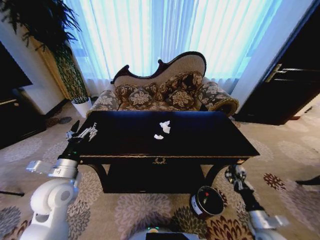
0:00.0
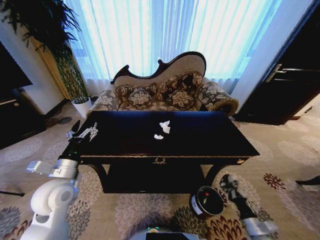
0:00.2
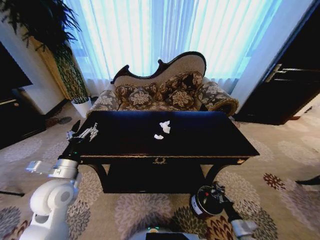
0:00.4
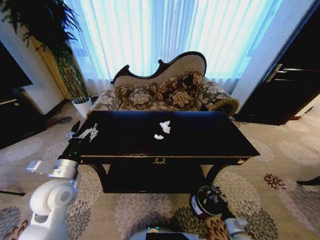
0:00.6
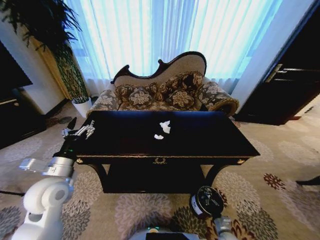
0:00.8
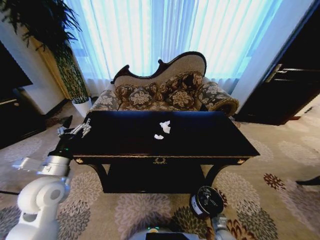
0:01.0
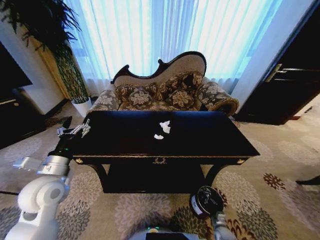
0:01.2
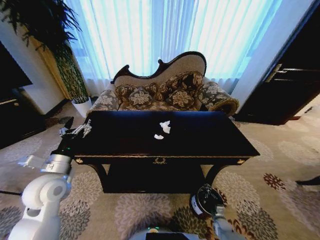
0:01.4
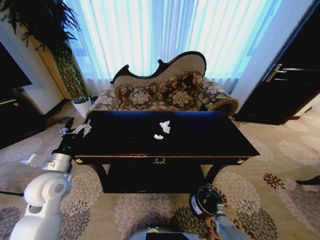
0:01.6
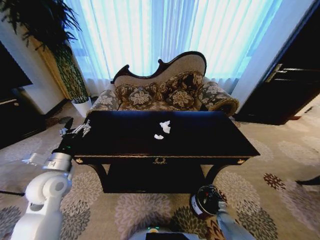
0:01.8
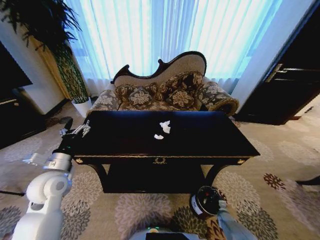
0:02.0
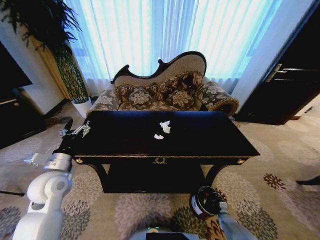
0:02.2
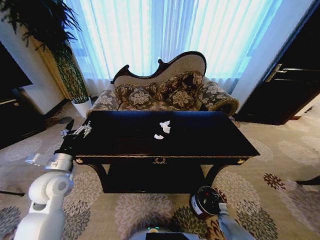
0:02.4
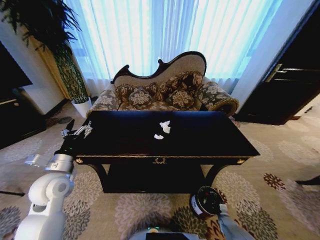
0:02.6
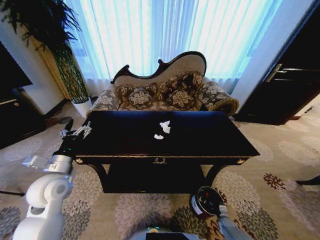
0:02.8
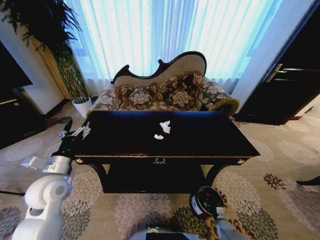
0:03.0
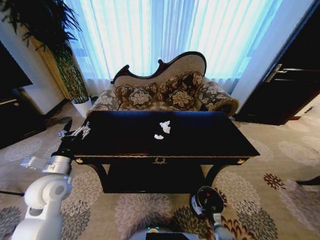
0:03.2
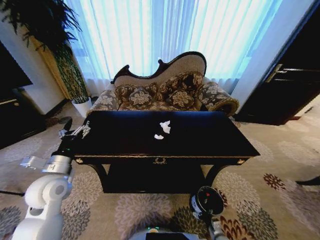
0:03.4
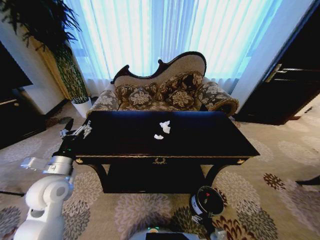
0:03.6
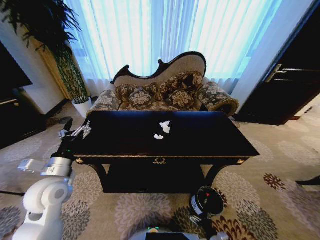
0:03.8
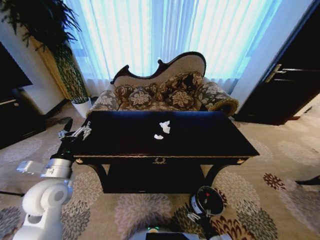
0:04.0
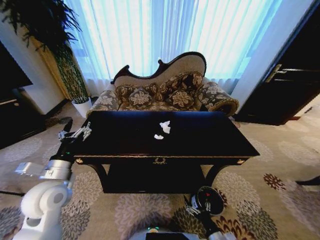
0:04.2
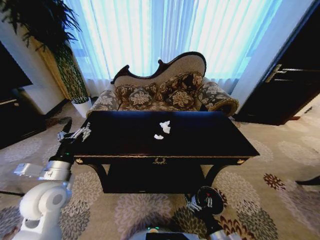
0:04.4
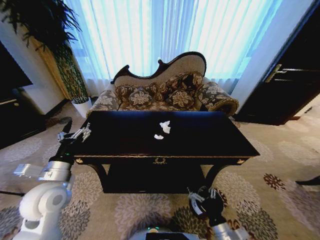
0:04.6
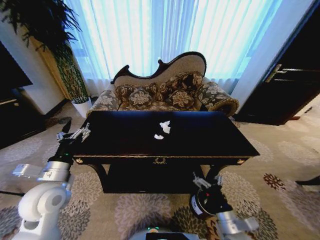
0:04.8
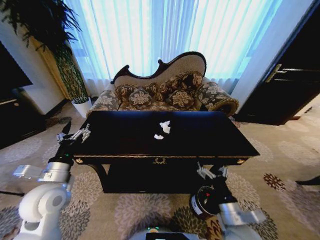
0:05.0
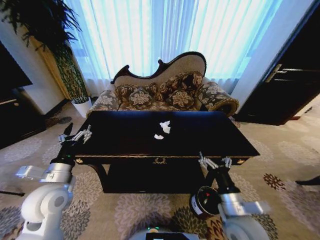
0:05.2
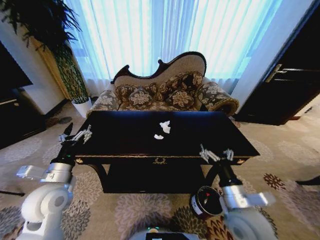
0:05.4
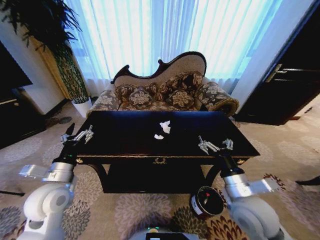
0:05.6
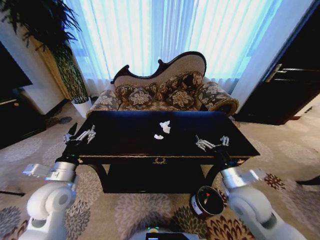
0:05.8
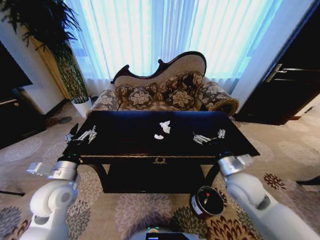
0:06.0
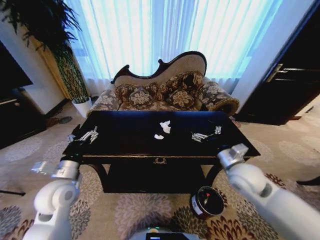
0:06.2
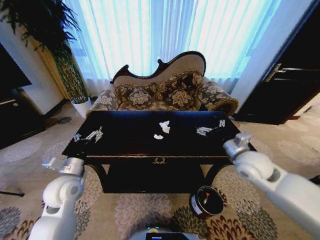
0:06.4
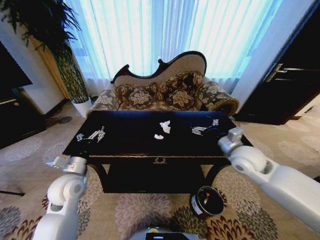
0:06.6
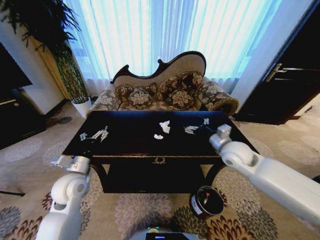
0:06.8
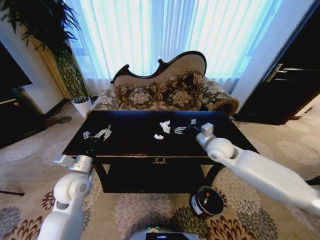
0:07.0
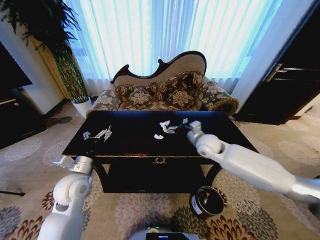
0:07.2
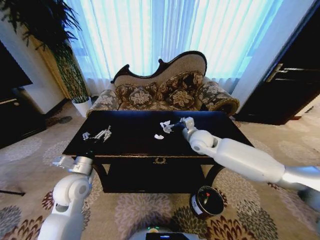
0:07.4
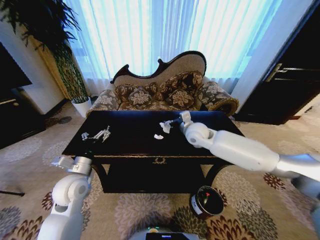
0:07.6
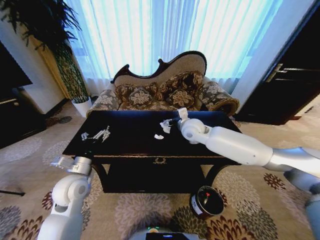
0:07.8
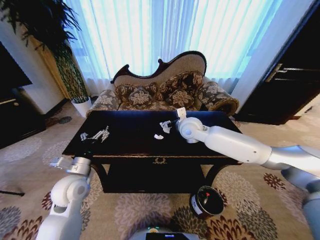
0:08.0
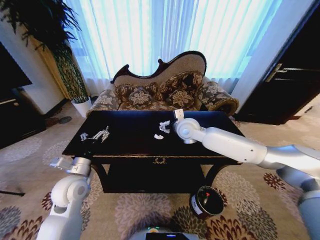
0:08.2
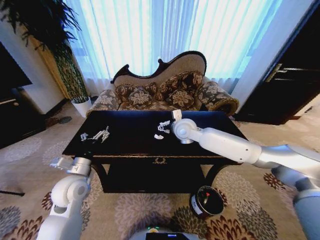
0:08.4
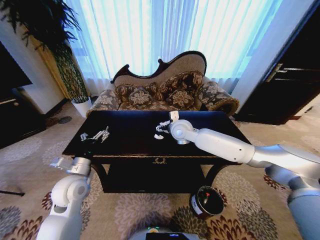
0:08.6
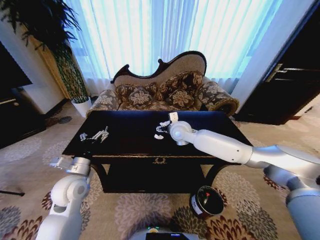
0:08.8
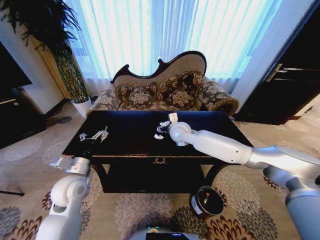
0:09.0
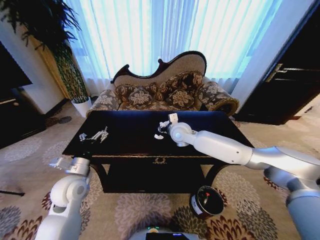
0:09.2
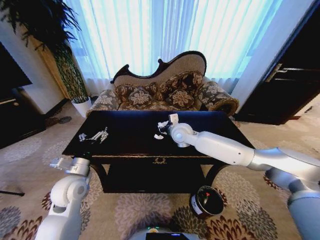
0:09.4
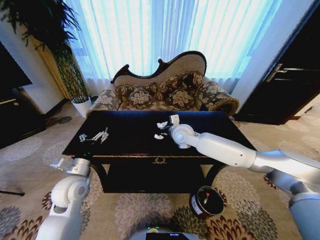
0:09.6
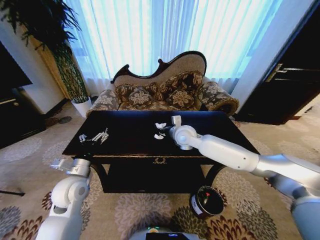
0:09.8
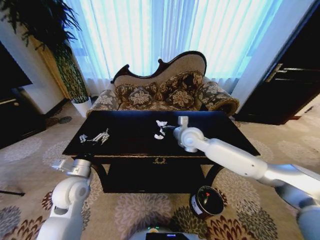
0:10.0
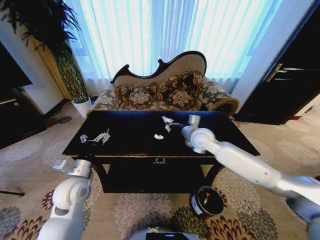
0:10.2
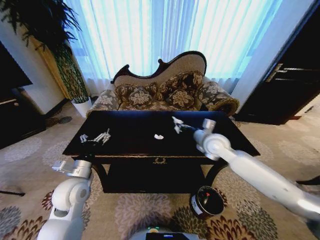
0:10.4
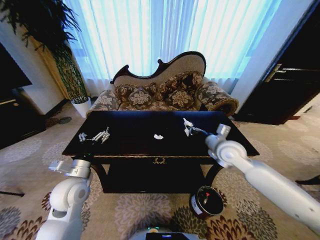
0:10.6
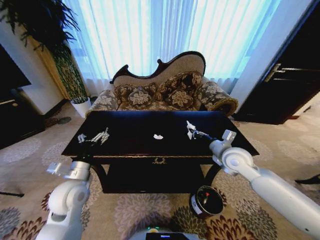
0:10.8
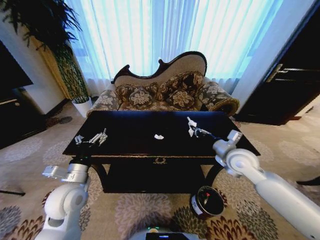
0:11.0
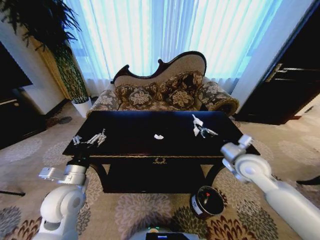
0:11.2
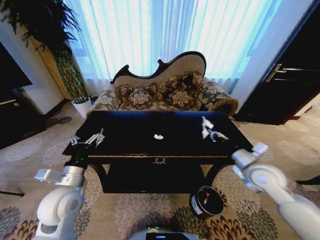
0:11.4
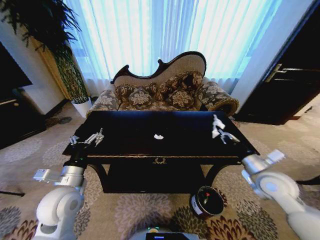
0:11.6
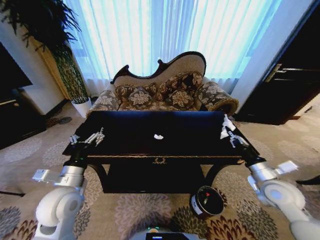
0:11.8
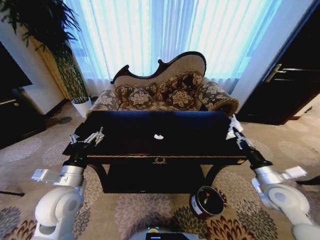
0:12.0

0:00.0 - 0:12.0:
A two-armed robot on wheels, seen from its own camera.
Task of the whole recording: Move to the front of the table and place the trash on the table into the trash bin.
0:00.0 - 0:01.6: The right gripper heads downward, covering approximately 25 cm.
0:01.6 - 0:03.0: The right gripper opens its fingers.
0:03.0 - 0:04.4: The right gripper shifts about 30 cm upward, to the left and backward, and opens.
0:04.4 - 0:06.0: The right gripper is displaced upward and forward by some 30 cm.
0:06.0 - 0:07.6: The right gripper goes roughly 25 cm forward and to the left.
0:07.6 - 0:09.0: The right gripper travels to the left by about 5 cm.
0:09.0 - 0:10.4: The right gripper is displaced to the right and backward by some 15 cm, and closes.
0:10.4 - 0:12.0: The right gripper goes about 25 cm to the right, backward and downward.

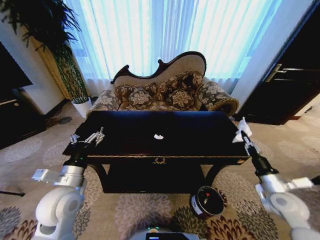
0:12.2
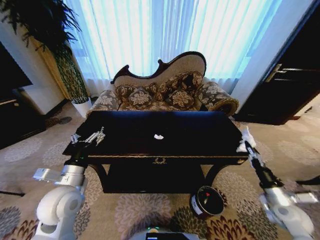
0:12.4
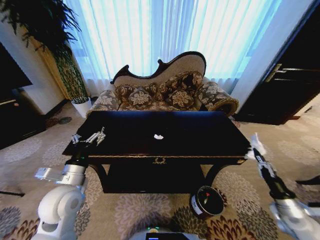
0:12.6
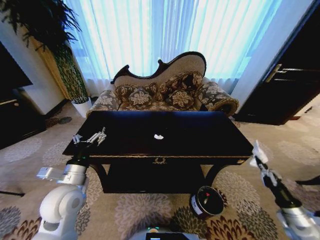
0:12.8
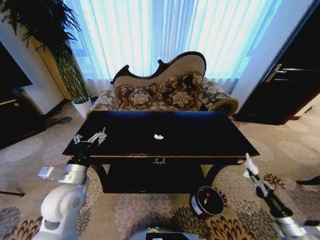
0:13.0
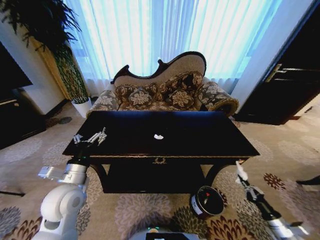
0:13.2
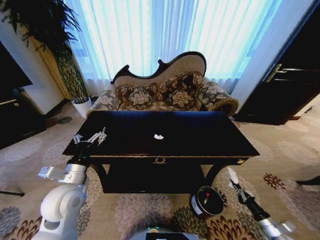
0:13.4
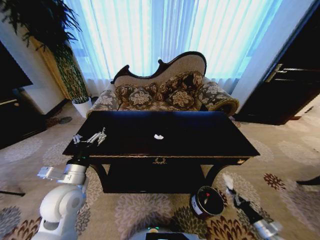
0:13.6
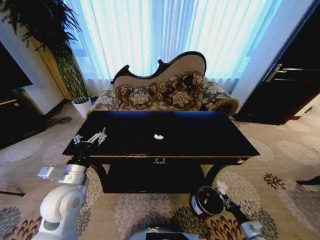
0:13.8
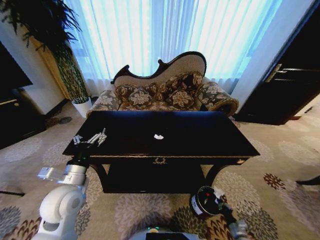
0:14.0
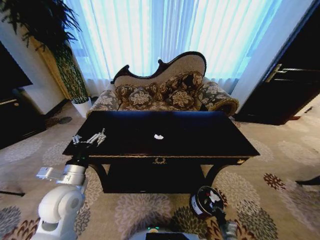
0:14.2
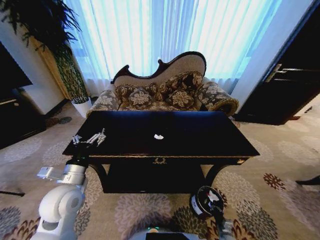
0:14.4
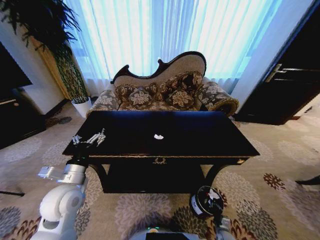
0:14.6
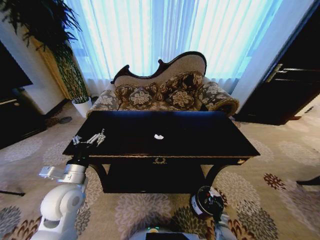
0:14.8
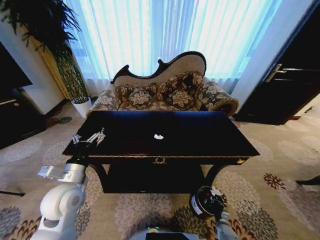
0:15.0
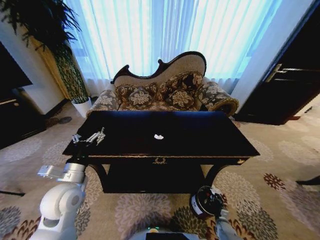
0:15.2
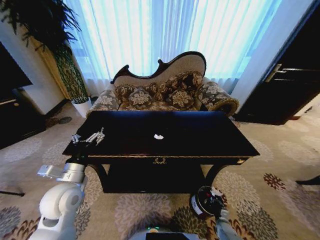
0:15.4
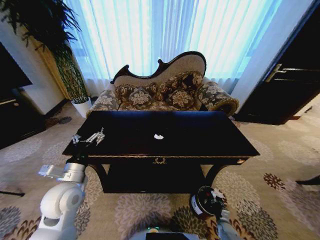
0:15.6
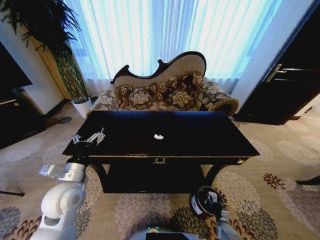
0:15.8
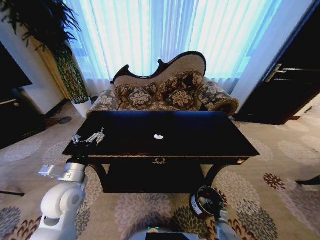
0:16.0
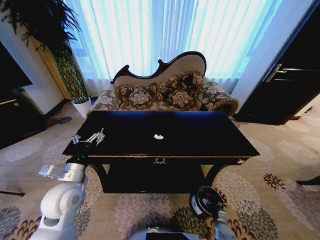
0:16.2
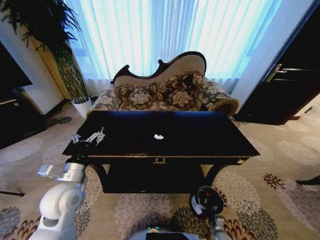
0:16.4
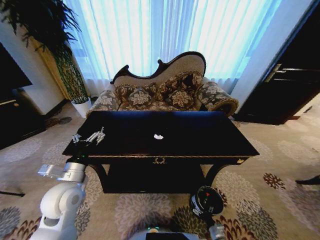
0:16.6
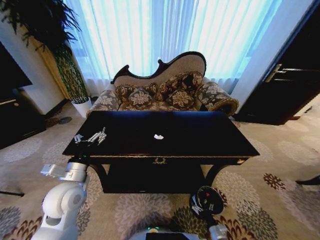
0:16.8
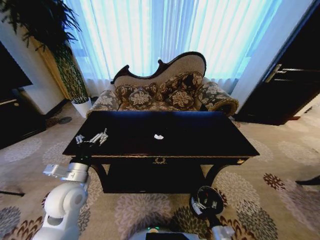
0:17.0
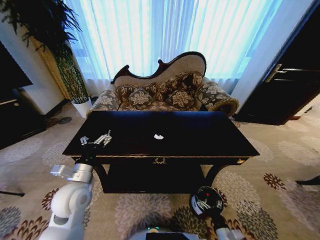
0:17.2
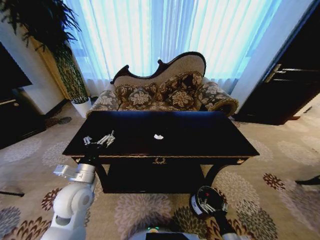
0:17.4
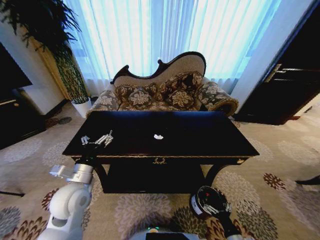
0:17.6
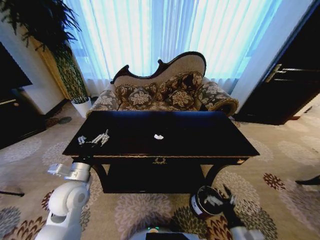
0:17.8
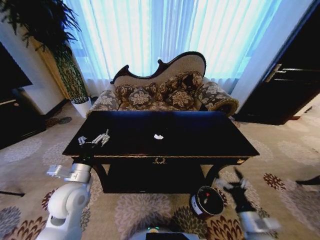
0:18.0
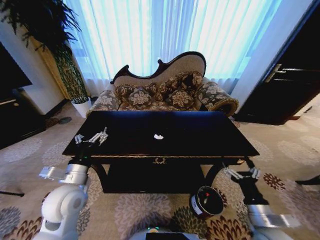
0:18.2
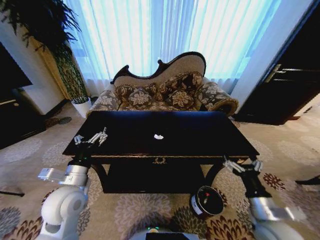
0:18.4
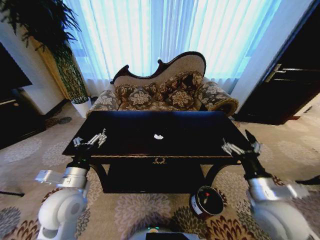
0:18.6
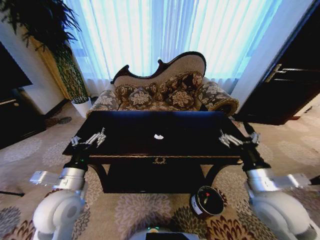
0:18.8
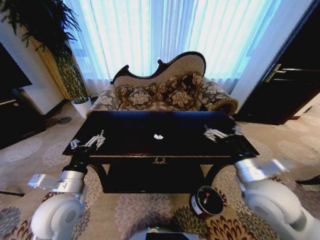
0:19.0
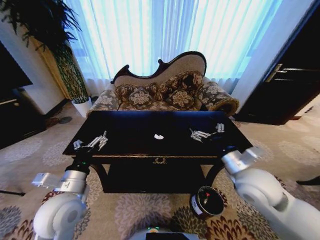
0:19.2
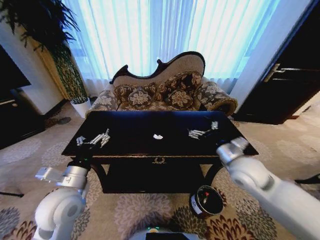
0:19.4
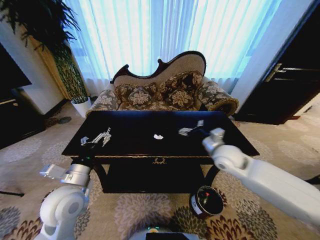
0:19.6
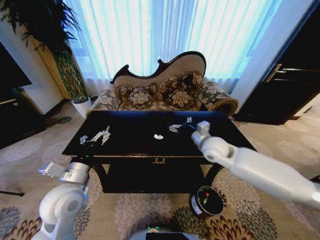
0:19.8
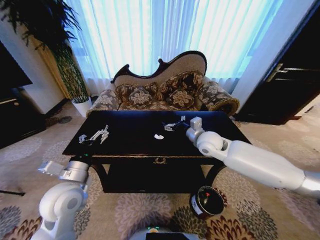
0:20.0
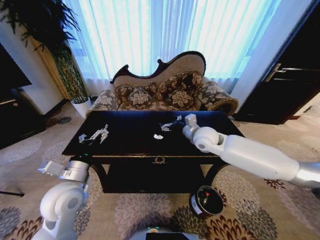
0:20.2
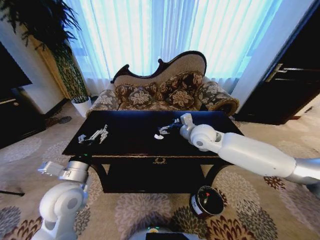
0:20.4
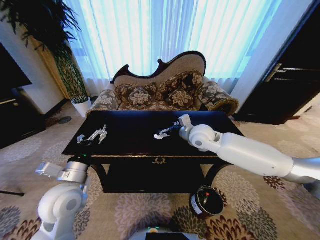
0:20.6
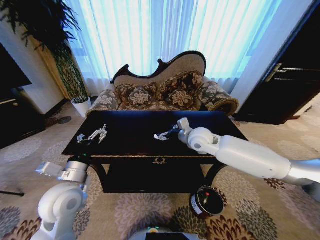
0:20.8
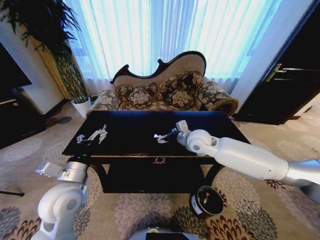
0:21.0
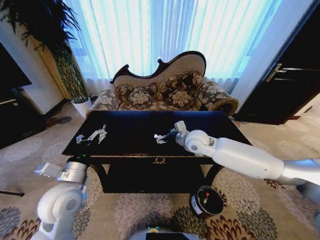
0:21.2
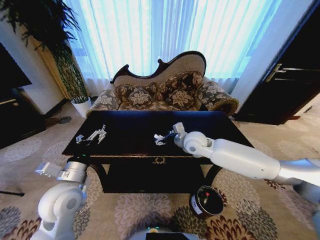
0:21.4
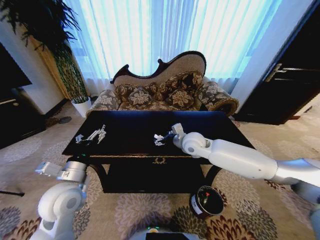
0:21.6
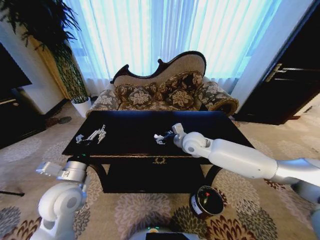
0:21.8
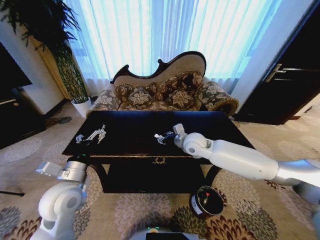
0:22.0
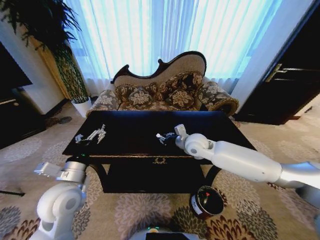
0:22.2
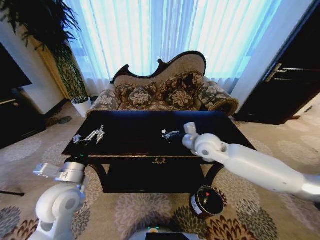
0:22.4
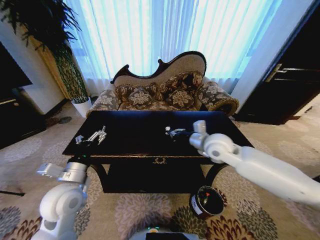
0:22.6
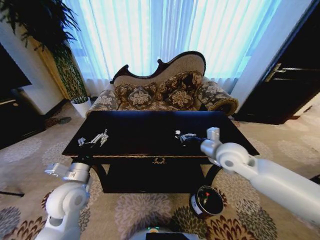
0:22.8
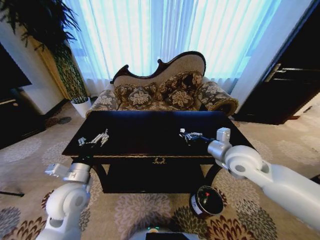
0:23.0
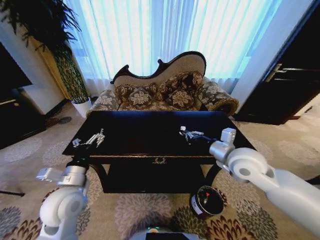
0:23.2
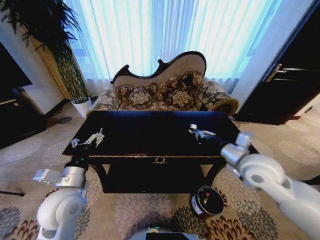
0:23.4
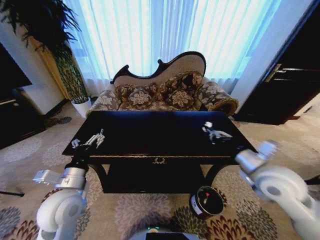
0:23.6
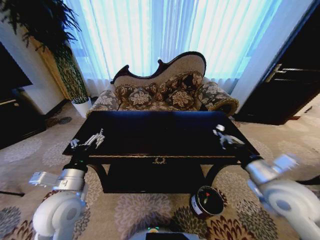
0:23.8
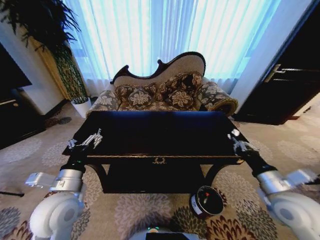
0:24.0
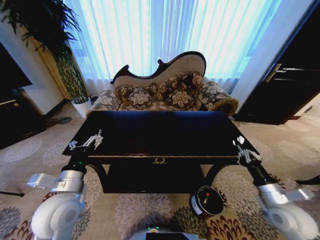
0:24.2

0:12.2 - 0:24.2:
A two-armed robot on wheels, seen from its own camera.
Task of the whole recording: Move to the front of the table and place the trash on the table into the trash bin.
0:12.2 - 0:13.8: The right gripper goes some 30 cm downward.
0:13.8 - 0:15.2: The right gripper travels to the left, downward and forward by about 15 cm.
0:15.2 - 0:16.6: The right gripper moves backward, some 10 cm, and opens its fingers.
0:16.6 - 0:18.2: The right gripper shifts some 35 cm upward.
0:18.2 - 0:19.8: The right gripper is displaced forward, upward and to the left by roughly 30 cm.
0:19.8 - 0:21.2: The right gripper goes about 5 cm to the left.
0:21.2 - 0:22.6: The right gripper is displaced to the right by about 5 cm, and closes its fingers.
0:22.6 - 0:24.2: The right gripper goes roughly 30 cm backward, to the right and downward.
